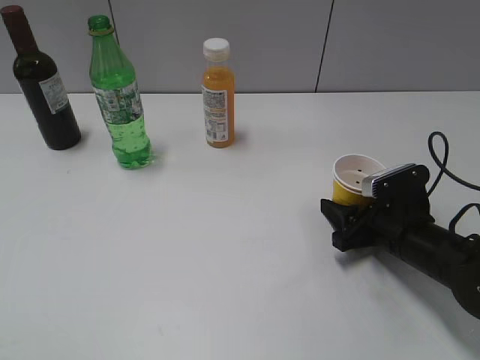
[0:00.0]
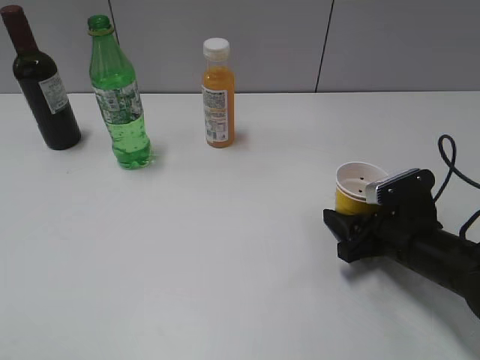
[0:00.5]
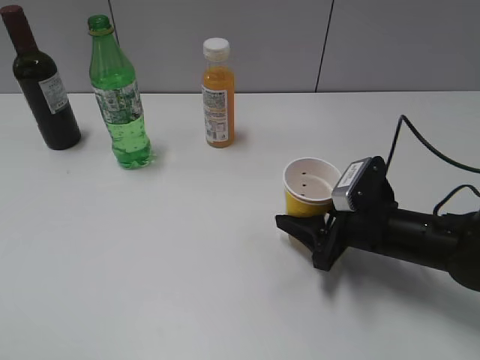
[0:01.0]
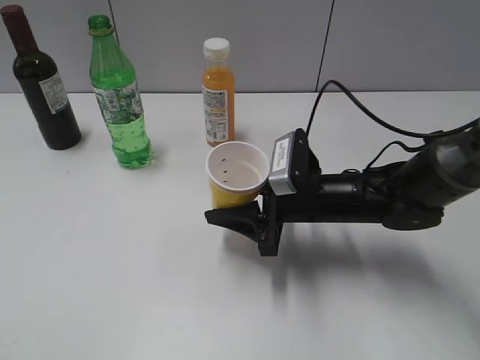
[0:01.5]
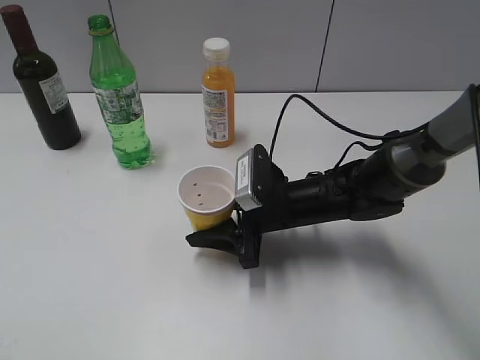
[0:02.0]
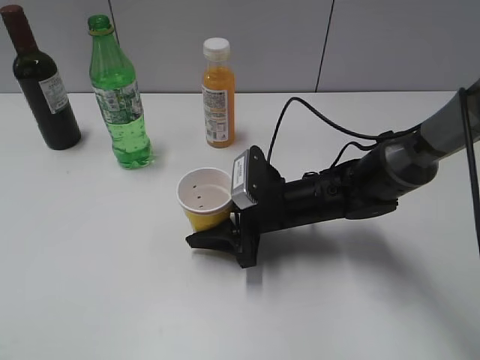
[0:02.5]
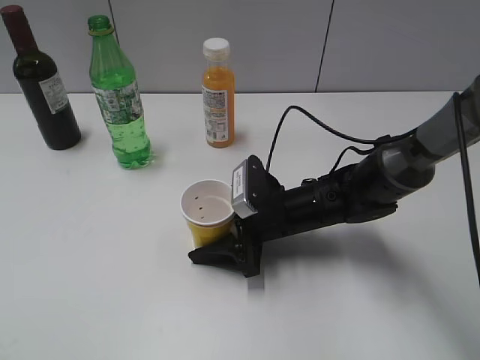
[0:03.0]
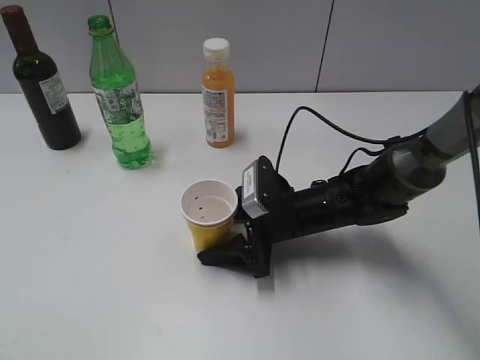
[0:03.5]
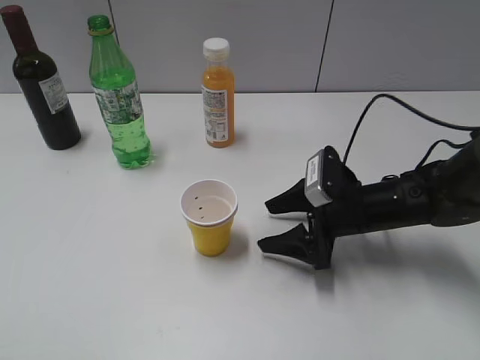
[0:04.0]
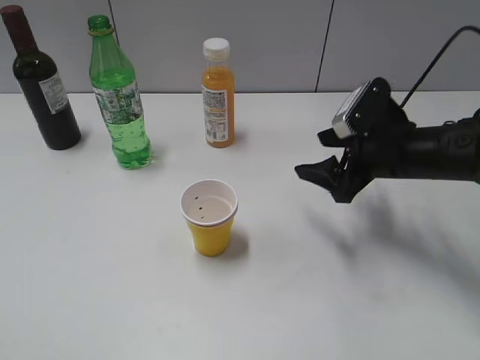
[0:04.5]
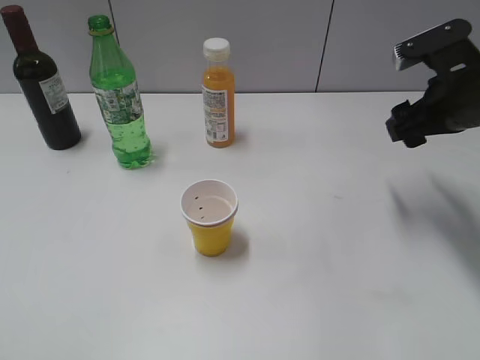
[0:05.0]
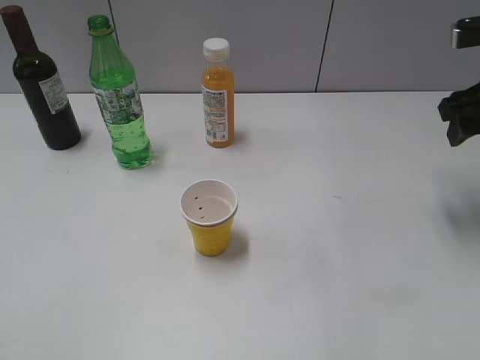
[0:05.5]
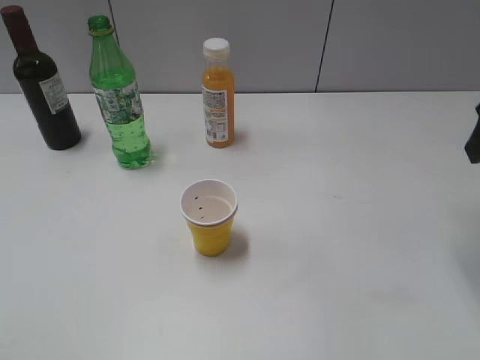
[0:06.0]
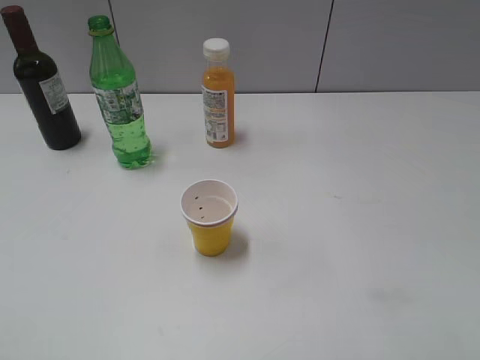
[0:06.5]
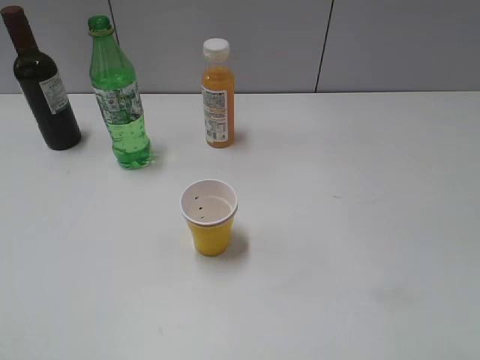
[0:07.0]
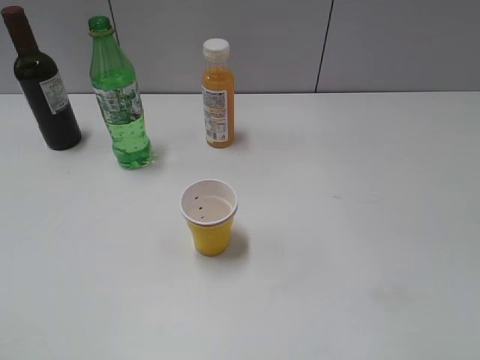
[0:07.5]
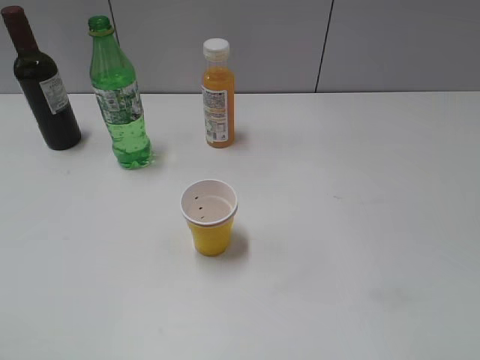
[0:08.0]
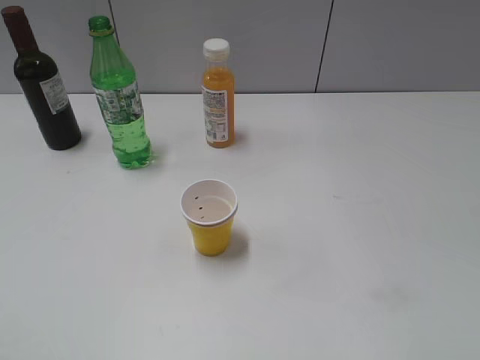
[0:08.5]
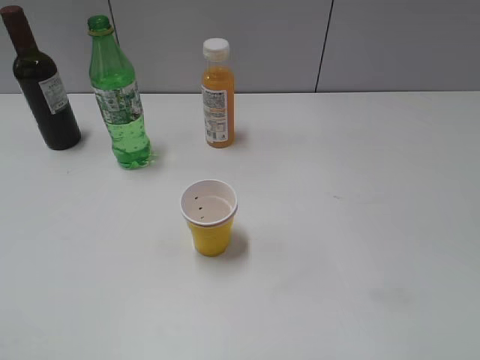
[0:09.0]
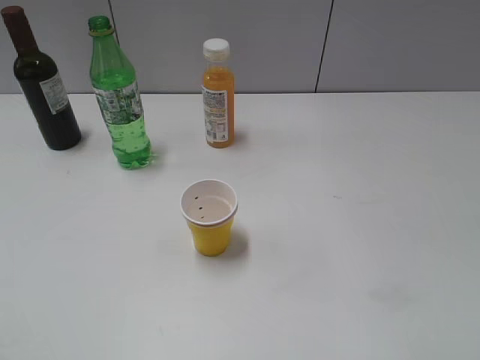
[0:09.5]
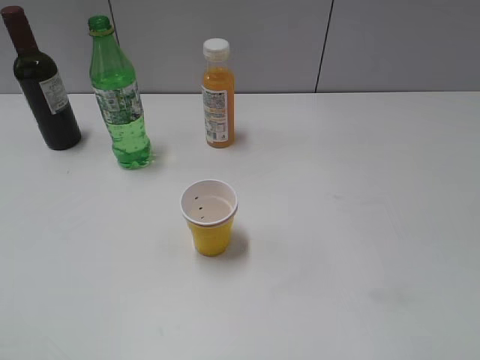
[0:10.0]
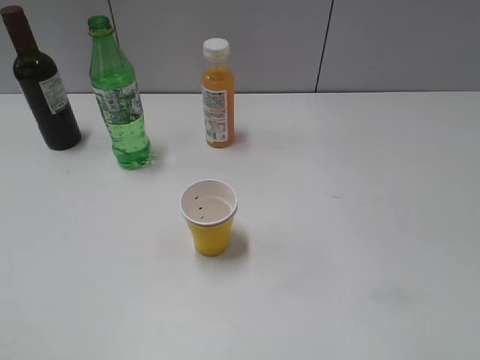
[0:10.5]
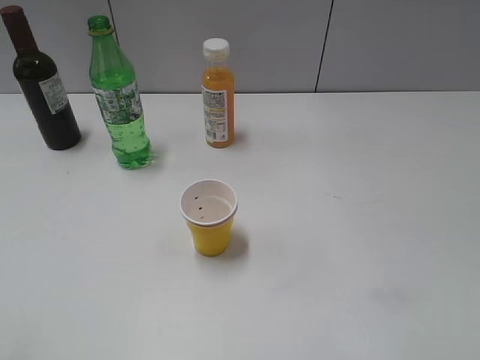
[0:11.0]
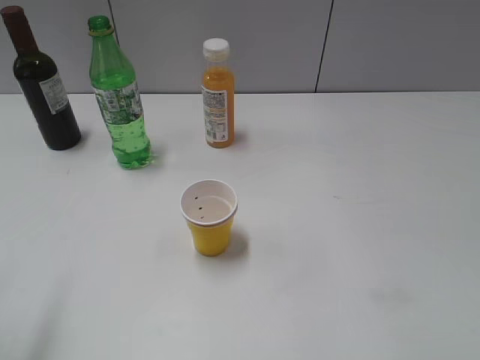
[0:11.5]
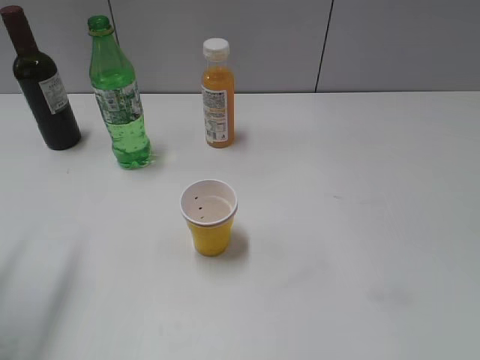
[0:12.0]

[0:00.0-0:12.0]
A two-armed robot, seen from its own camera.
Step, 0:00.5 to 0:03.5: Place the yellow paper cup on the table with right gripper.
0:00.0 to 0:02.0: The right gripper heads to the left, covering roughly 15 cm.
0:02.0 to 0:04.0: The right gripper moves to the right, about 10 cm, and opens its fingers.
0:04.0 to 0:06.0: The right gripper heads upward and to the right, covering roughly 25 cm.
0:08.0 to 0:10.0: Neither gripper changes place.
0:10.0 to 0:12.0: The left gripper heads forward, covering some 20 cm.

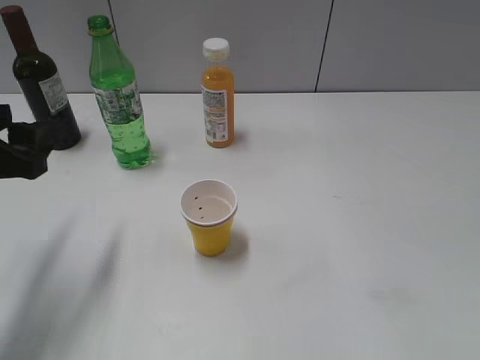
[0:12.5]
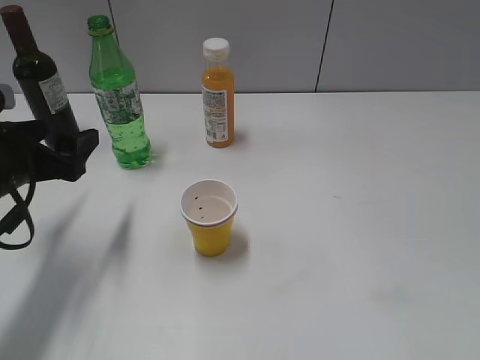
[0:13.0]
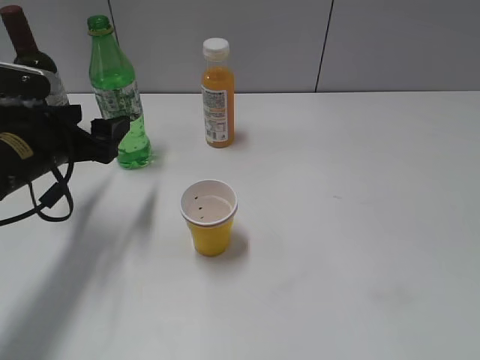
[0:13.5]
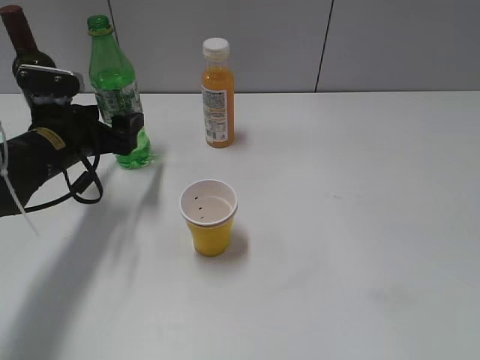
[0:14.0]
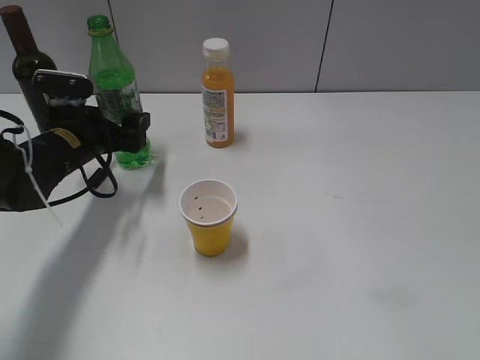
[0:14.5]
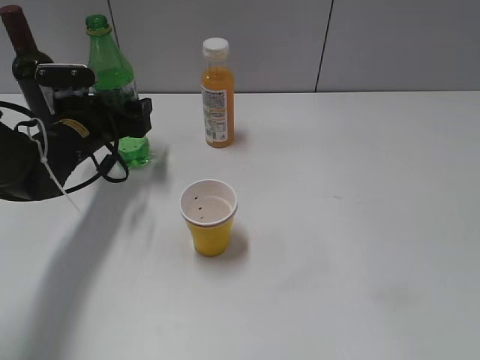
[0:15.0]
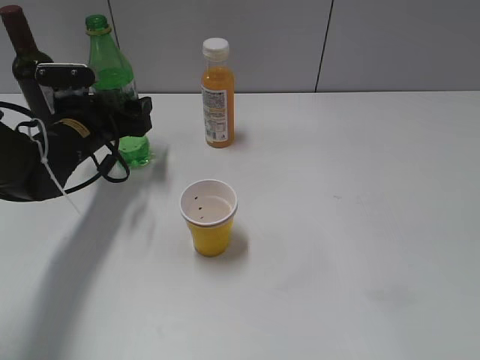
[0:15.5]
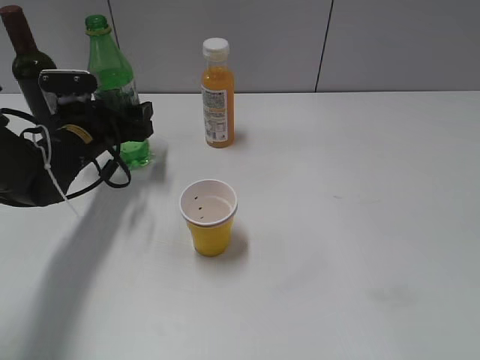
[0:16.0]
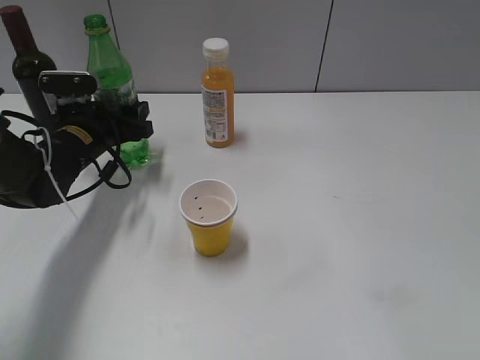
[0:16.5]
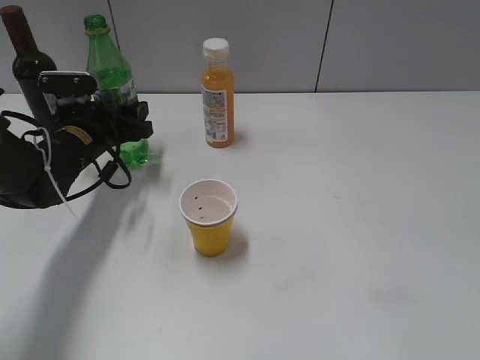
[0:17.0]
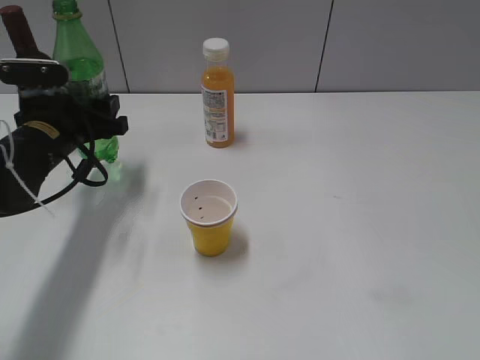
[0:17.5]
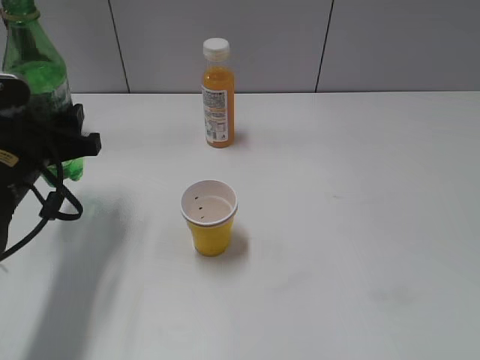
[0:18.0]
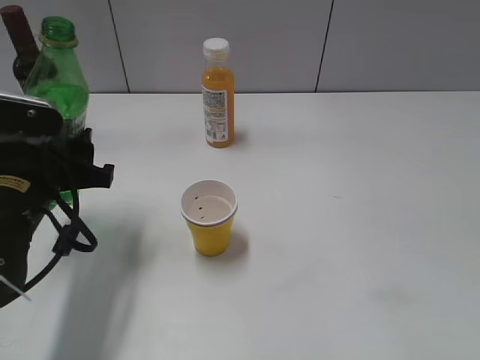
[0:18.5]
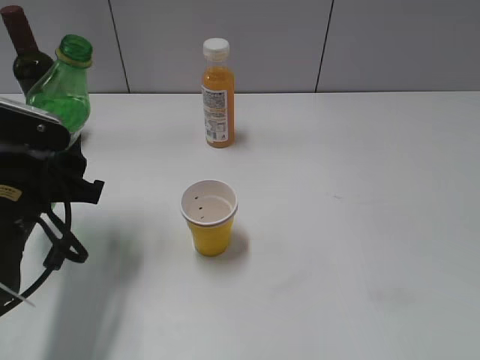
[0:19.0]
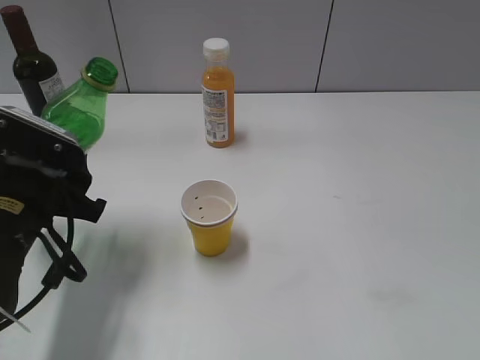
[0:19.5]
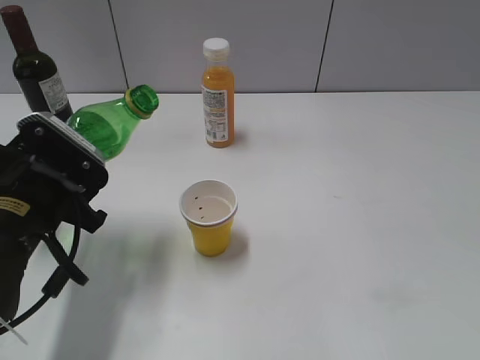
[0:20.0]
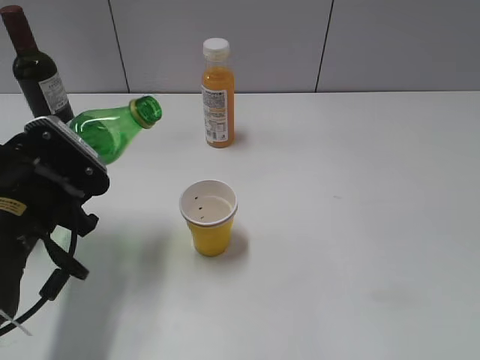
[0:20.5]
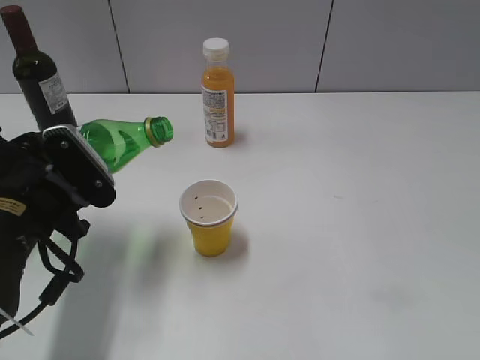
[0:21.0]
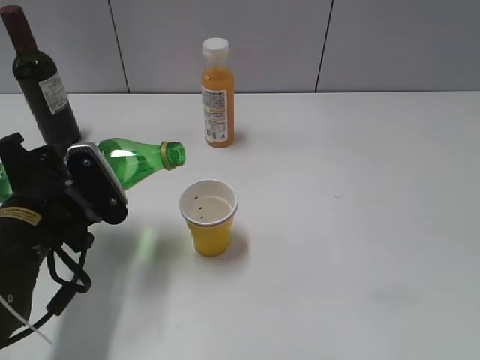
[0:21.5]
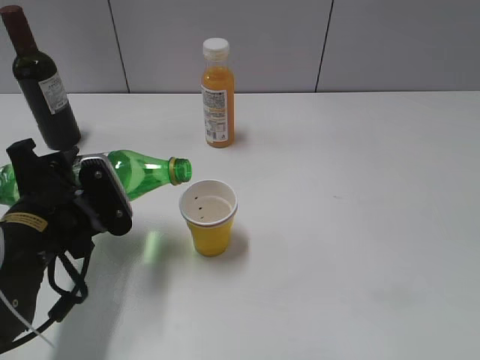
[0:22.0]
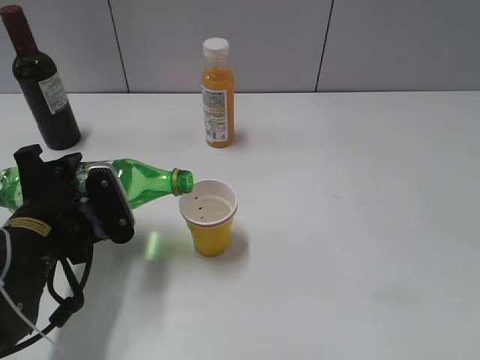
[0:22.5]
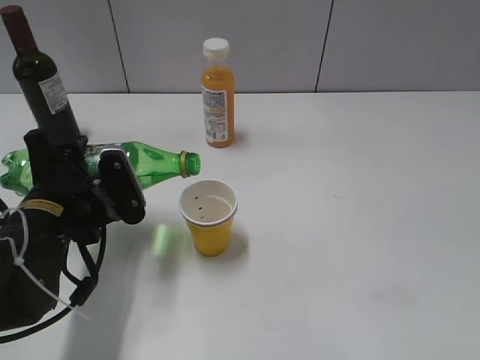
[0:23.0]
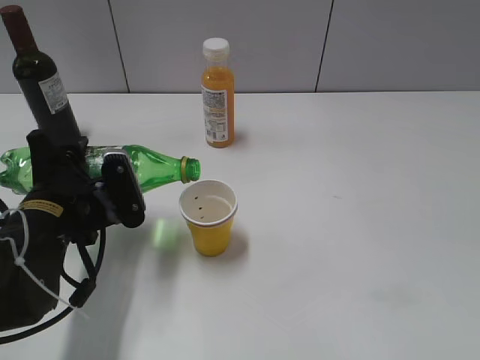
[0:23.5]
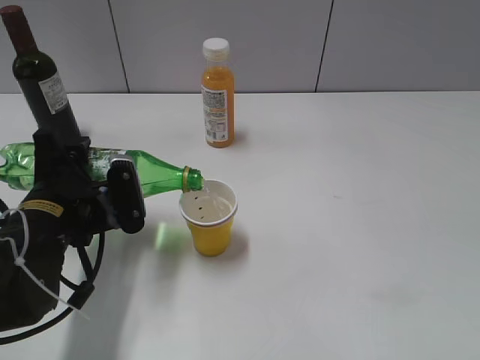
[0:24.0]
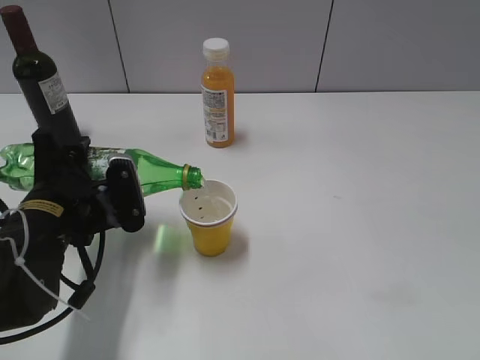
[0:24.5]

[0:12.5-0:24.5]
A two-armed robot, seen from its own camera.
Step, 0:12.5 to 0:16.5: Grasp the bottle with sprite with left gripper.
0:12.5 to 0:14.5: The left gripper shifts roughly 20 cm forward and downward.
0:14.5 to 0:16.5: The left gripper closes its fingers.
0:16.5 to 0:18.5: The left gripper is displaced backward by approximately 15 cm.
0:22.5 to 0:24.5: The grippers make only small movements.

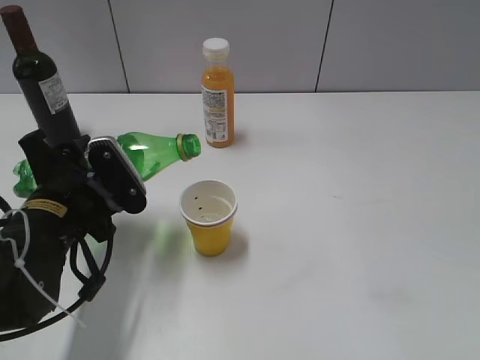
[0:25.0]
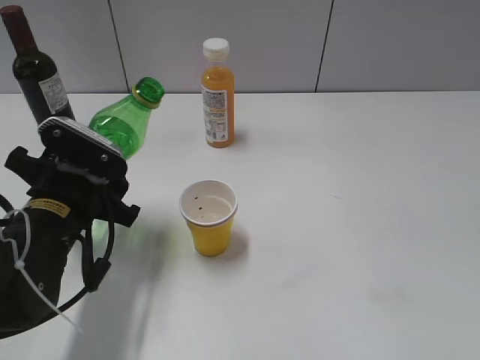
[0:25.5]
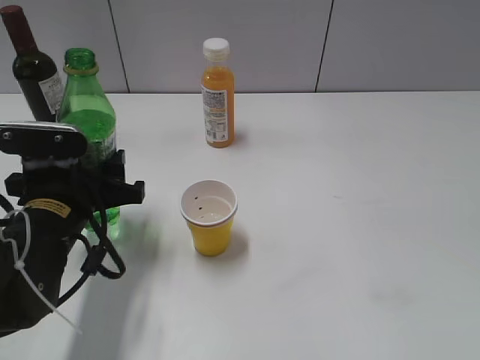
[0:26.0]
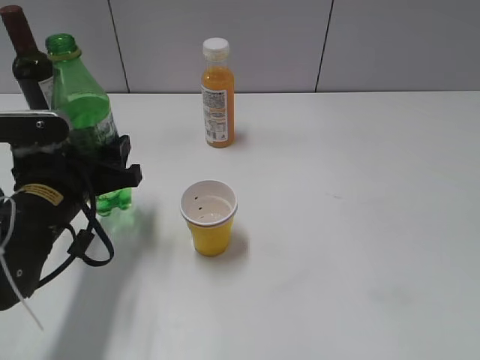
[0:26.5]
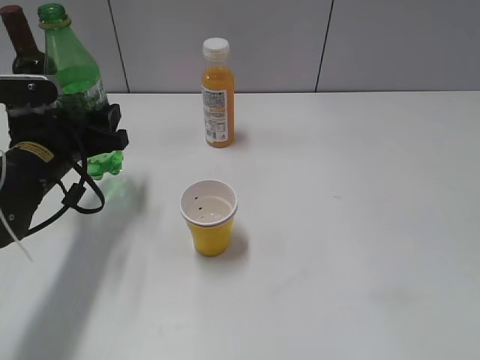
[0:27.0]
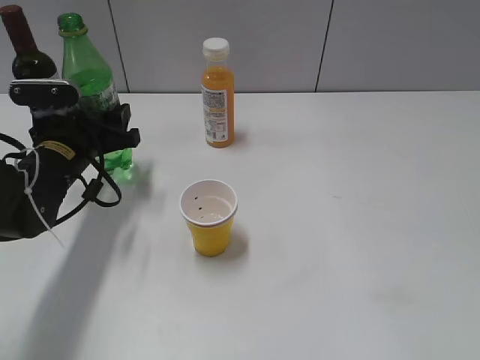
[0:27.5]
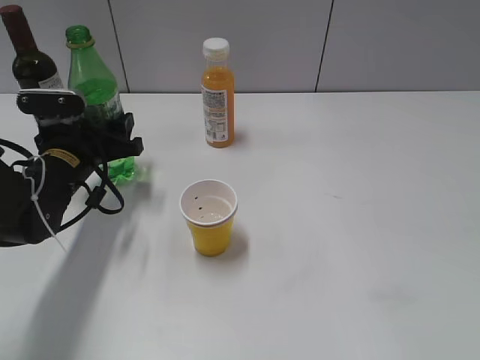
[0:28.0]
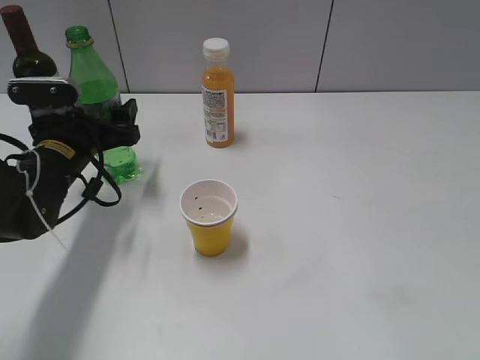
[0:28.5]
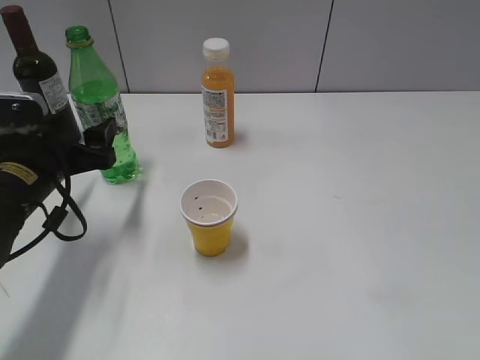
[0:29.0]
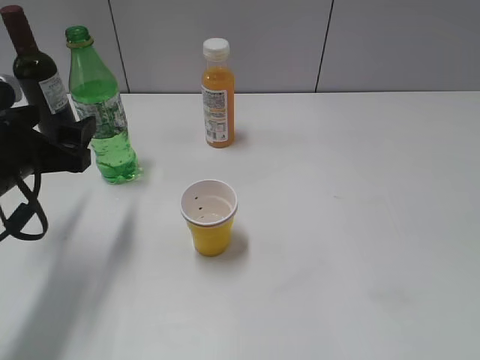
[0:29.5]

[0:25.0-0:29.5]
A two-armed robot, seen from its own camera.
Step, 0:25.5 to 0:29.0: Place the sprite bottle on the table with left gripper.
0:25.0 to 0:27.0: The left gripper is displaced forward by approximately 10 cm.
0:27.0 to 0:29.5: The left gripper shifts approximately 5 cm backward, and opens its fingers.
